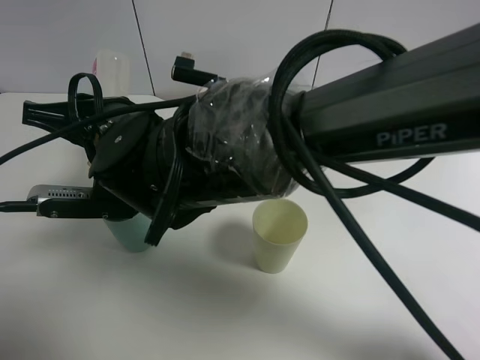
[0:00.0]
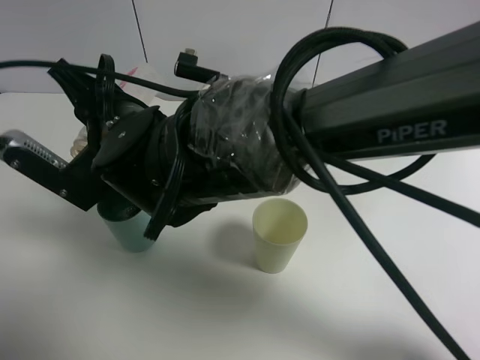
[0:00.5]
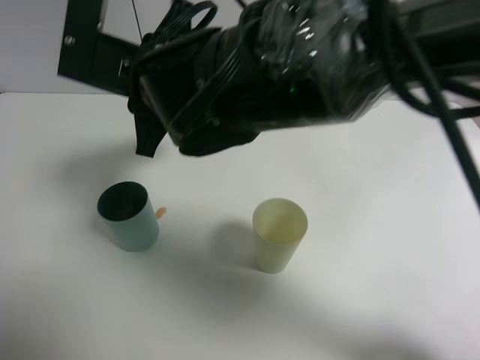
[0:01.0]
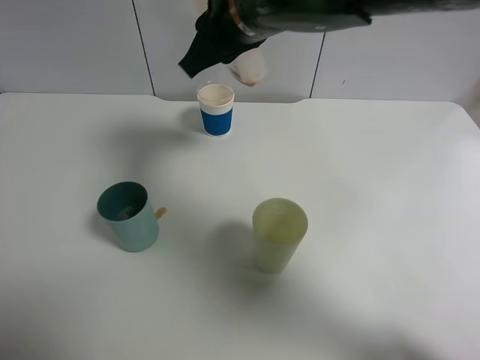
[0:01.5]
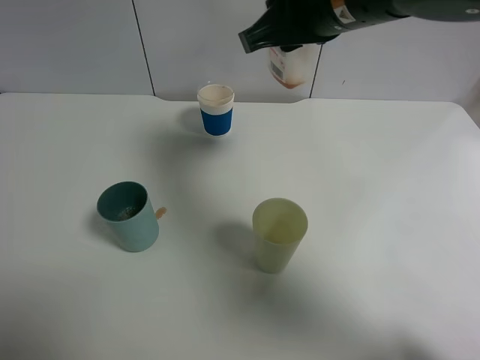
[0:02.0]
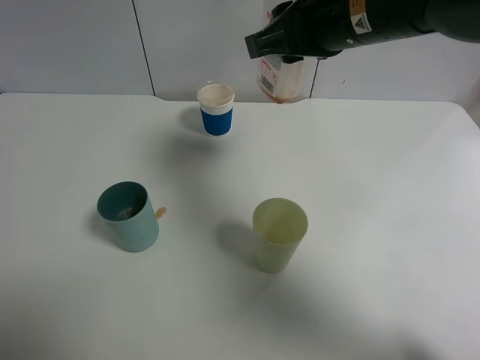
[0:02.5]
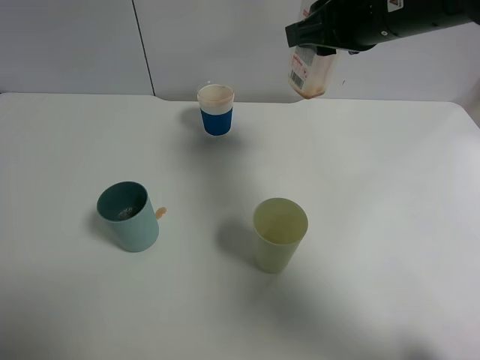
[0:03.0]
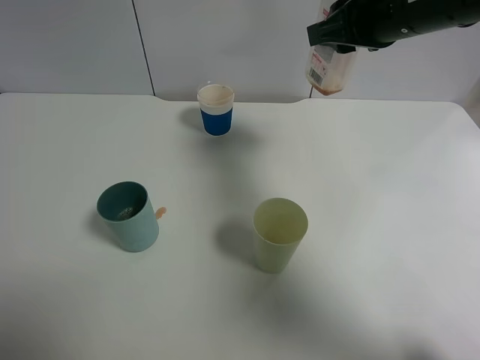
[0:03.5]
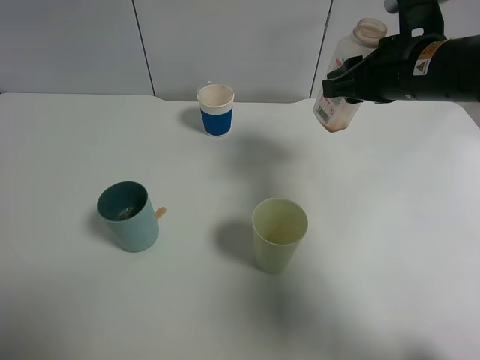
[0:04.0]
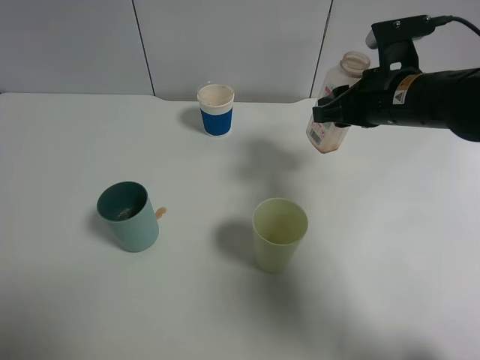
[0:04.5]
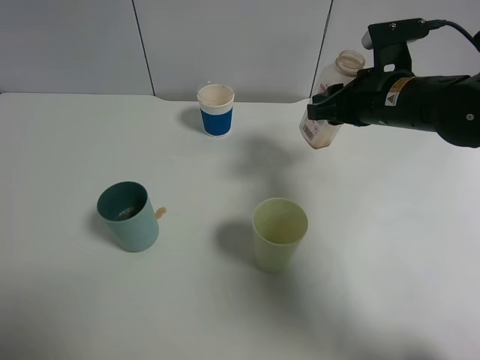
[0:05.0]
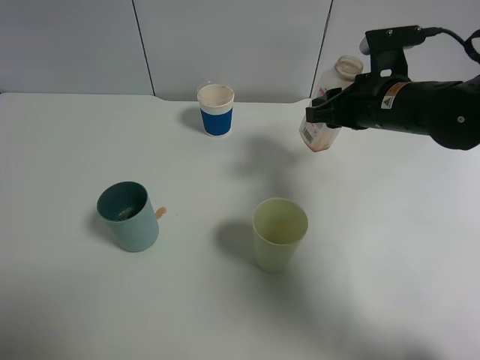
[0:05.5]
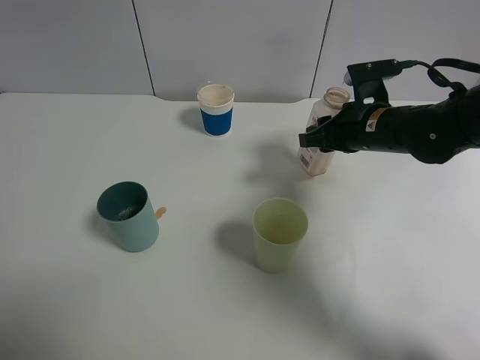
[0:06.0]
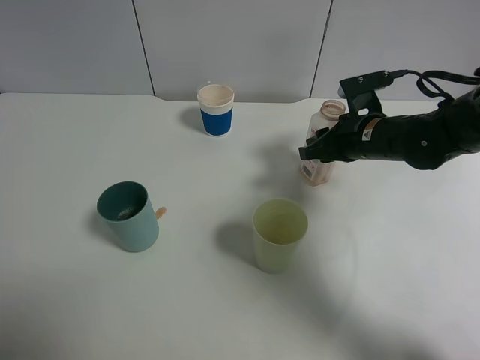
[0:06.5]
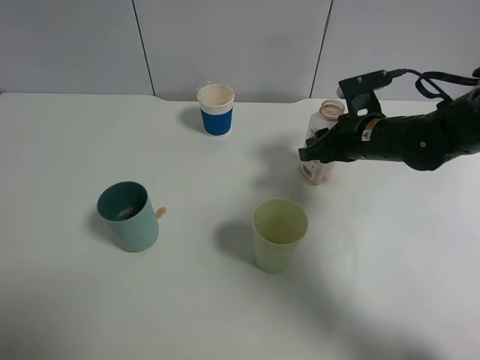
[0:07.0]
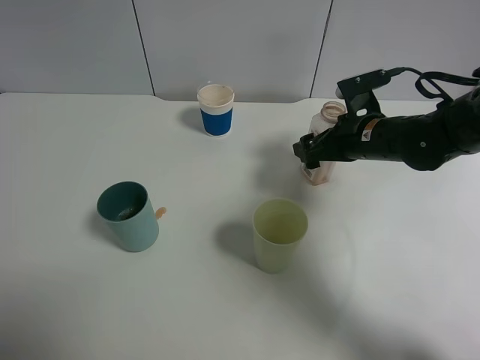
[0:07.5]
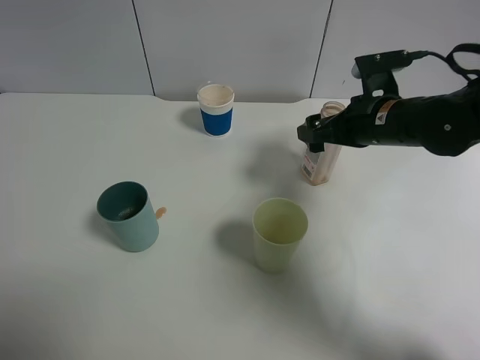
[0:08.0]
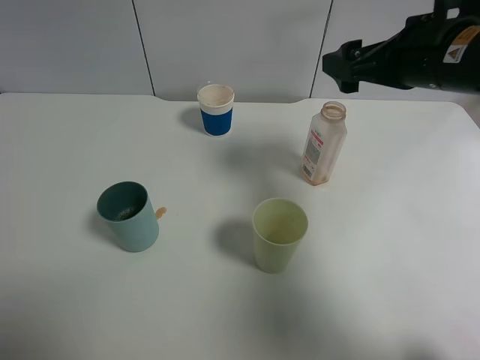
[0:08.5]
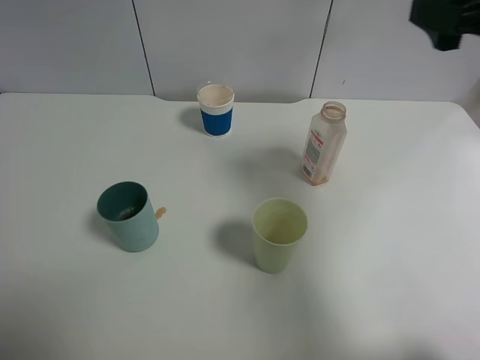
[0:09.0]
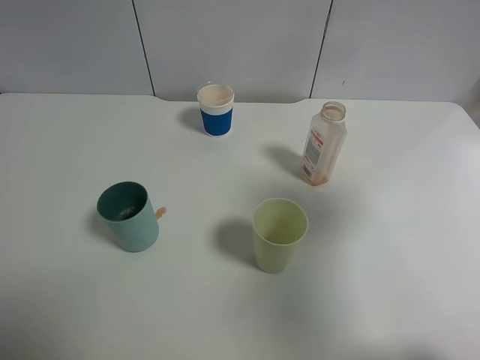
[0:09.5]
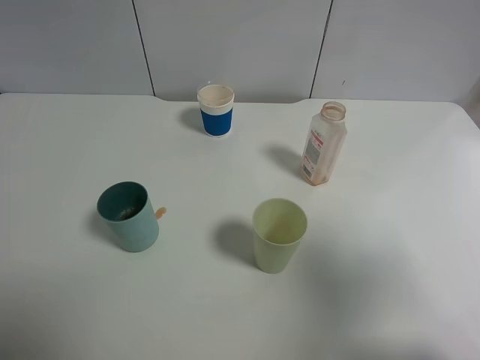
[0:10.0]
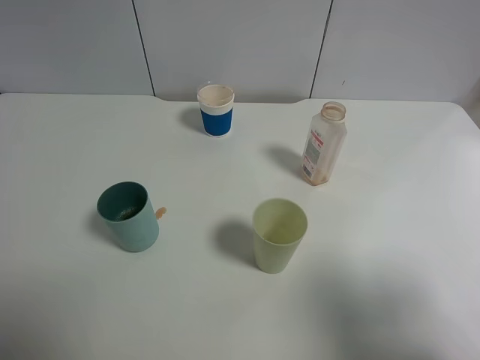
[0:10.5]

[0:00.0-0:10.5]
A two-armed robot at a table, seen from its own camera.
Task of the whole recording: use a gripper to hold the bottle of the drink and pour it into a random cup.
Step, 0:01.0 to 0:07.5: Place the cranberry juice bottle on the table with the right gripper.
0:00.0 to 0:02.0: The right gripper is displaced to the right and upward by approximately 25 cm.
0:02.0 to 0:04.0: The right gripper shifts roughly 15 cm to the right and downward.
0:04.0 to 0:06.5: The right gripper shifts about 10 cm downward.
0:06.5 to 0:08.5: The right gripper is displaced upward by about 15 cm, and opens.
0:08.5 to 0:10.5: The right gripper goes roughly 30 cm backward.

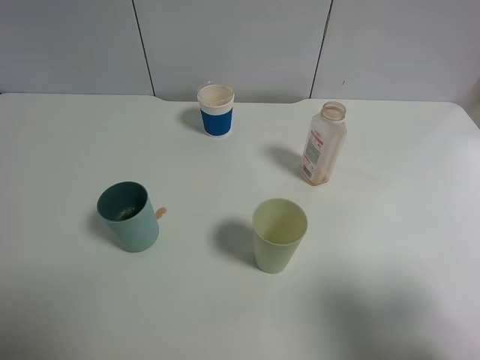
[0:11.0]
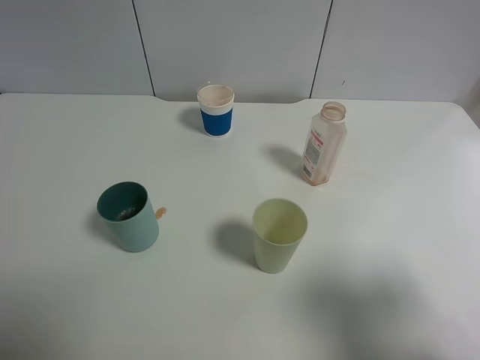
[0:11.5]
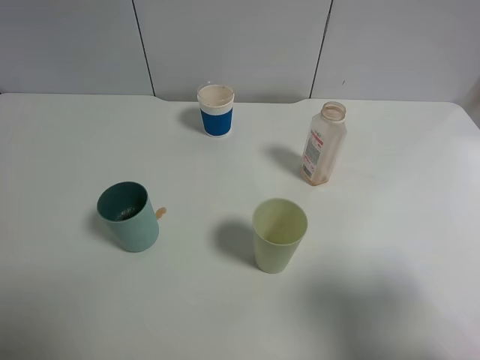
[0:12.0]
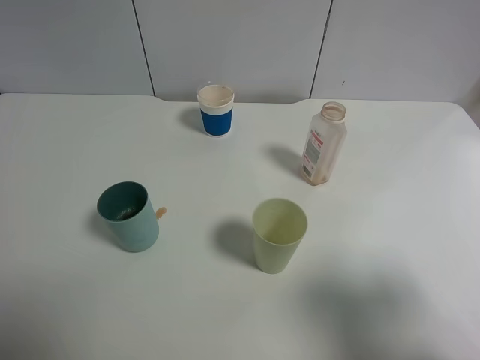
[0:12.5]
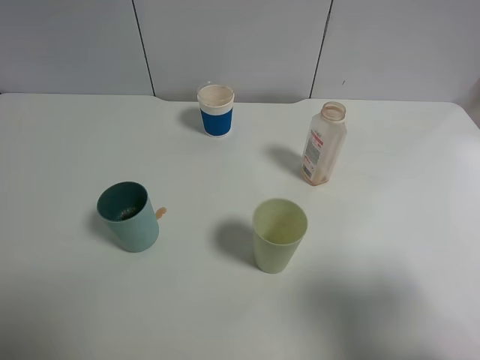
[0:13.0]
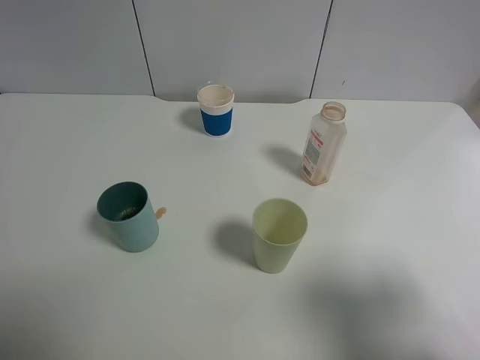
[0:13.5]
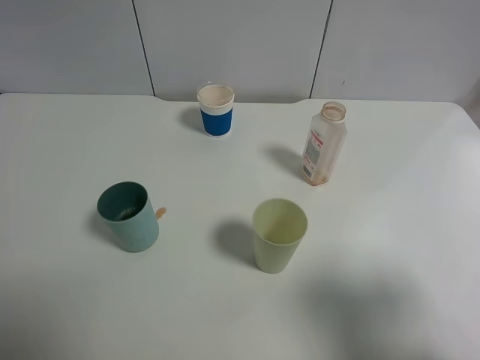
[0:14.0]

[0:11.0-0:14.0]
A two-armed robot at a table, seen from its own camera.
Task of the whole recording: use a gripper to hold the bottle of the drink and pour it into a random cup.
0:12.5 to 0:14.0: Both grippers stay put.
